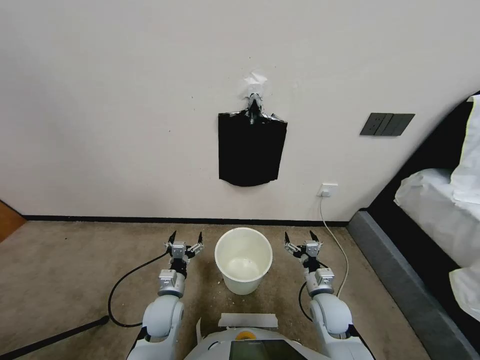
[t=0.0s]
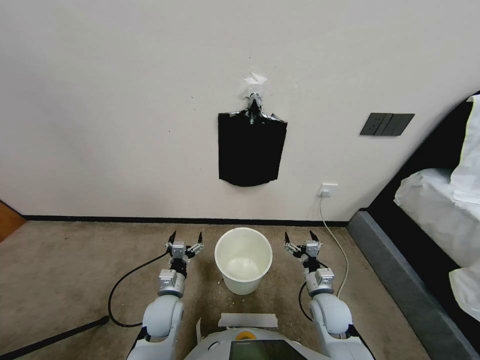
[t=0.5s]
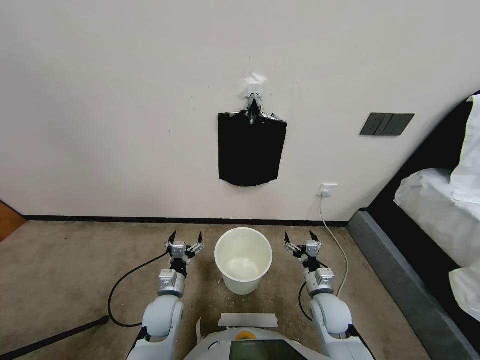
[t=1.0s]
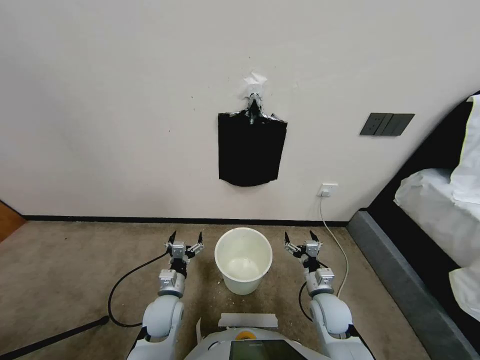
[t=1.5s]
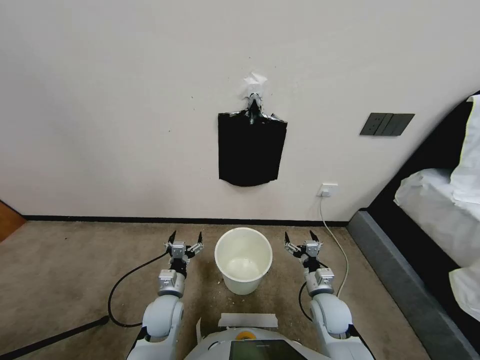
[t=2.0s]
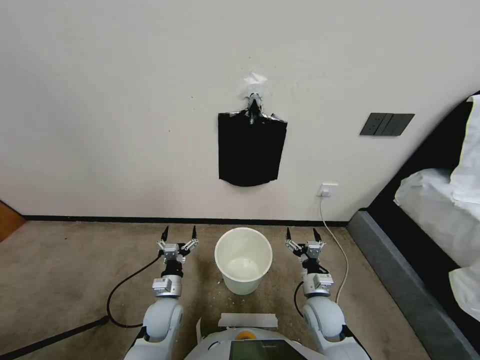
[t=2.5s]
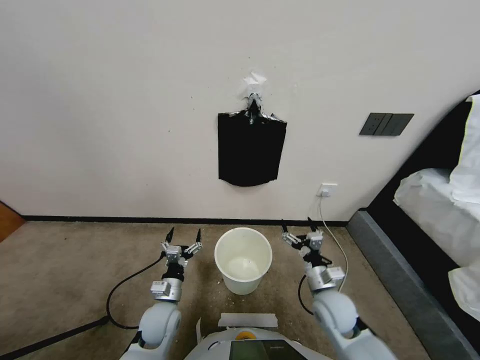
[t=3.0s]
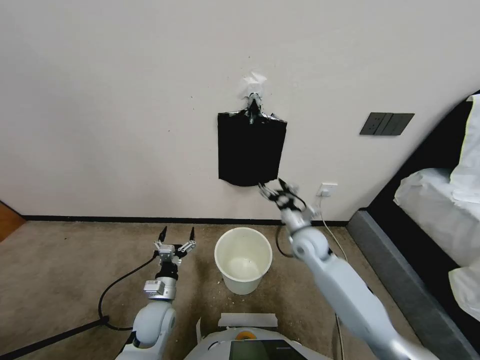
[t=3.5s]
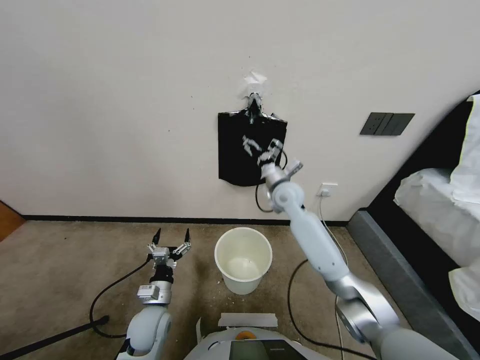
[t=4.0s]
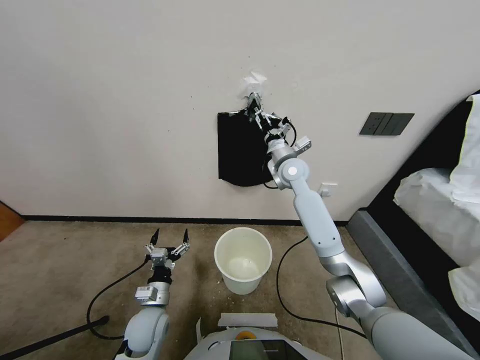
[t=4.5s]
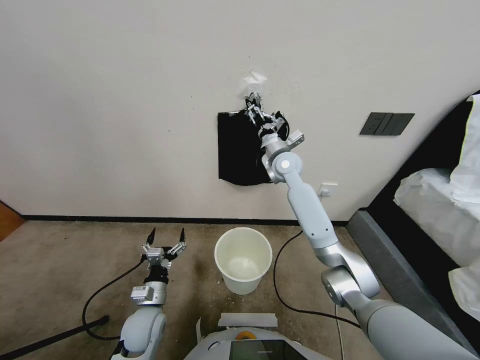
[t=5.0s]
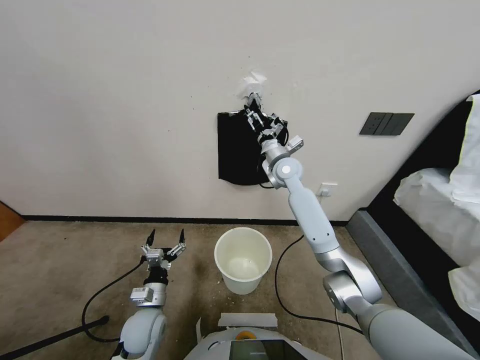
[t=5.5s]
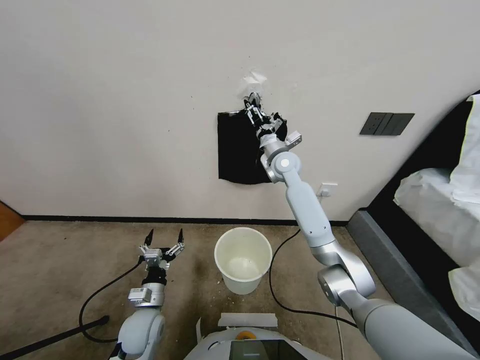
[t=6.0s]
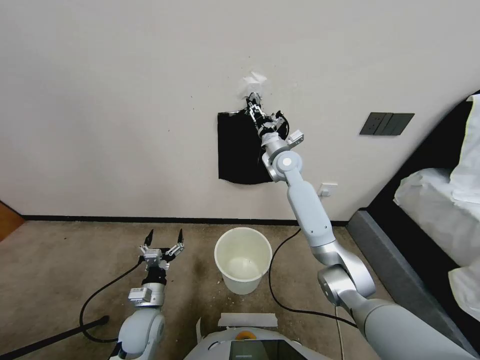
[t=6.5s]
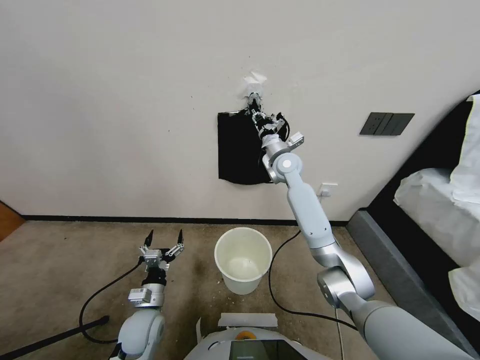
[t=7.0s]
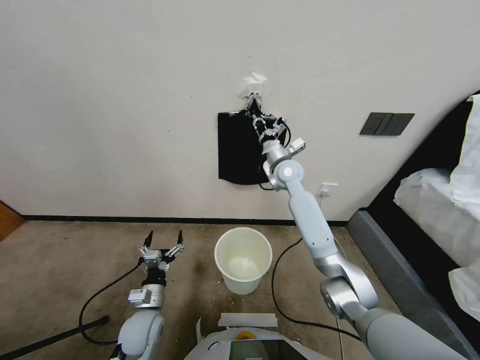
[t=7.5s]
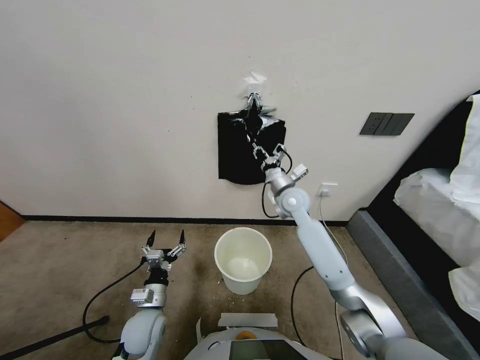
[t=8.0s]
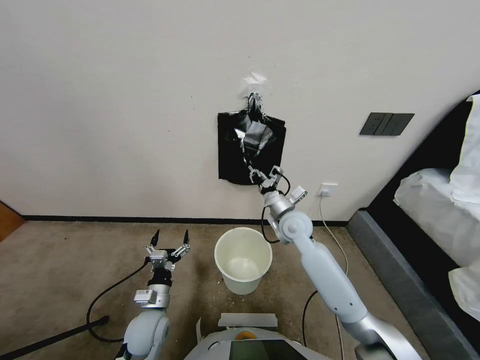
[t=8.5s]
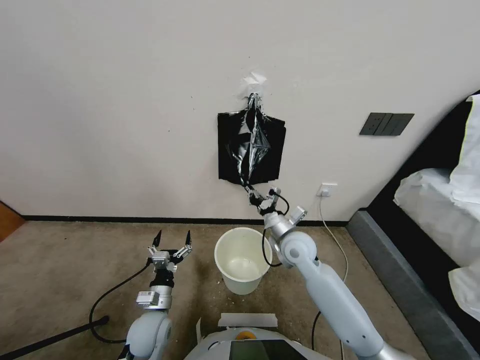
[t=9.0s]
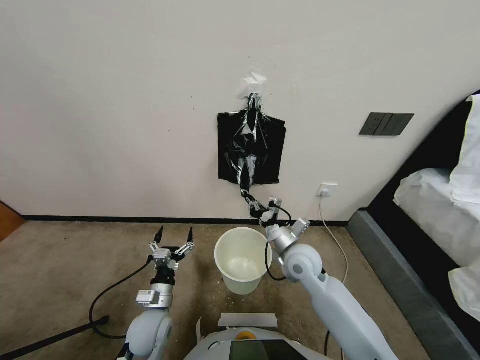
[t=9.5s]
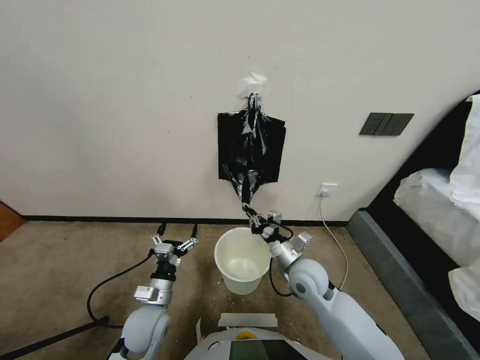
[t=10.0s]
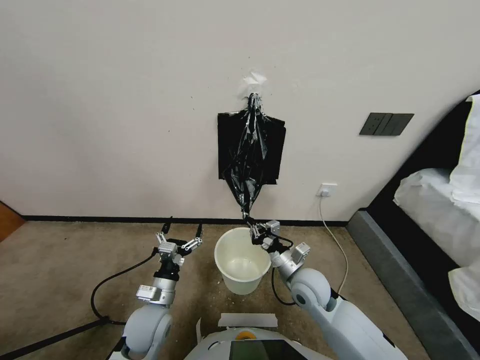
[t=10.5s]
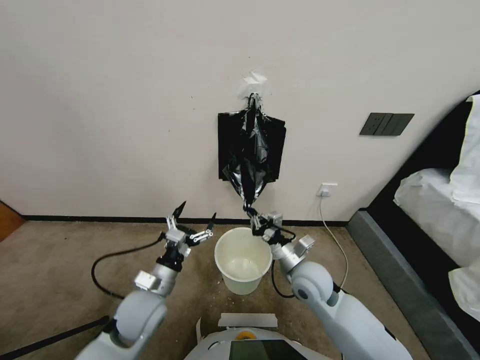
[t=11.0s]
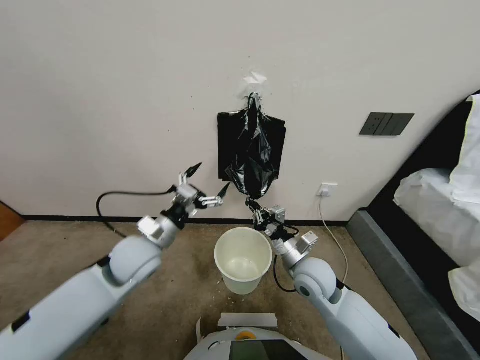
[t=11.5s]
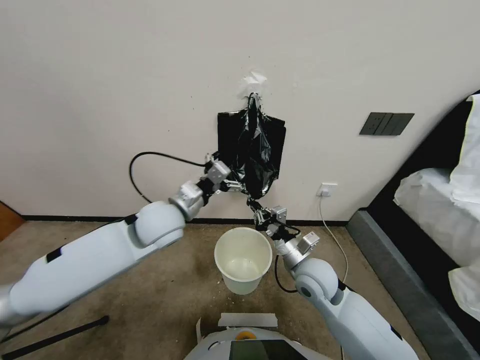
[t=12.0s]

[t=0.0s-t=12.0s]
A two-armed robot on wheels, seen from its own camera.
Task of the whole recording: Place a trash bag onto the trash bin.
t=2.0s to t=4.0s: The right gripper heads forward and upward, covering about 35 cm.
t=4.0s to t=6.0s: The right gripper shifts approximately 5 cm forward.
t=6.0s to t=8.0s: The right gripper heads backward and downward, covering some 15 cm, and closes its fingers.
t=8.0s to t=10.0s: The right gripper is displaced backward and downward by roughly 20 cm.
t=10.0s to t=12.0s: The left gripper shifts approximately 30 cm upward and forward.

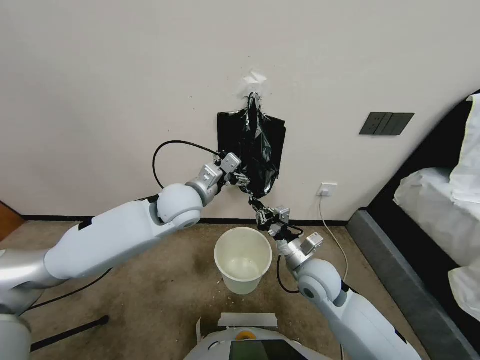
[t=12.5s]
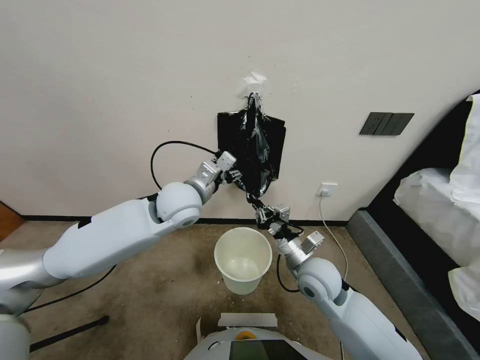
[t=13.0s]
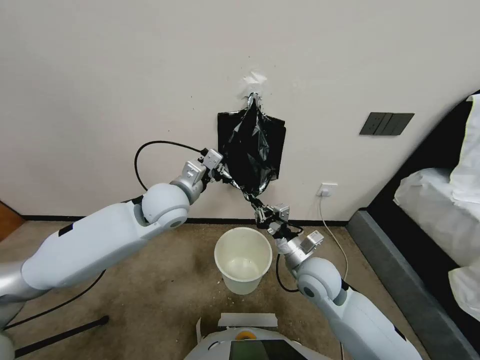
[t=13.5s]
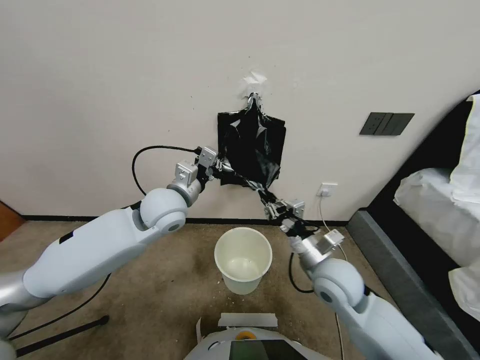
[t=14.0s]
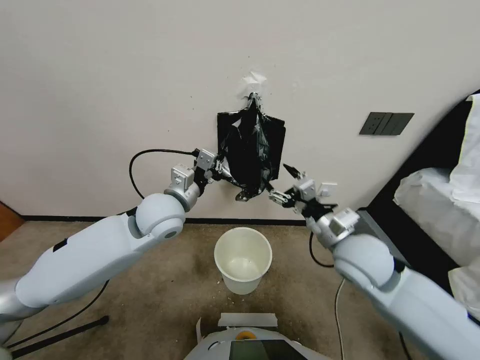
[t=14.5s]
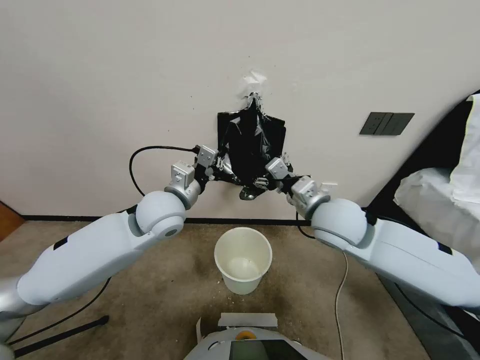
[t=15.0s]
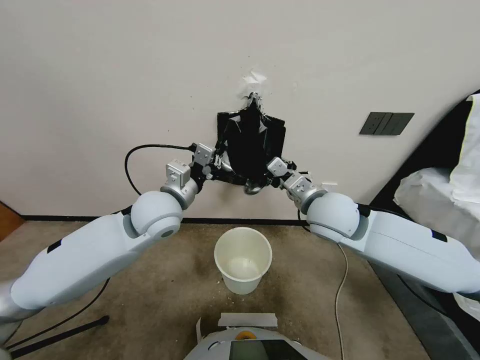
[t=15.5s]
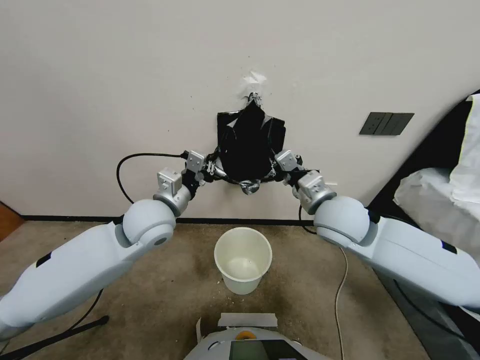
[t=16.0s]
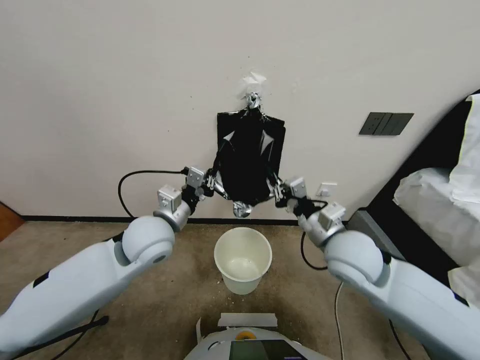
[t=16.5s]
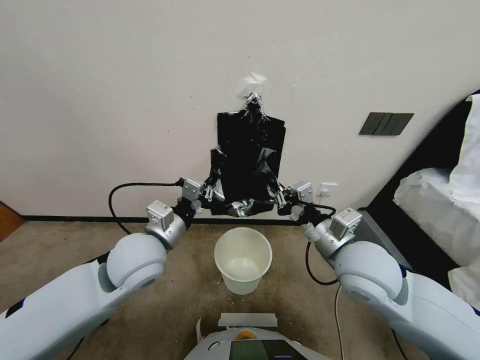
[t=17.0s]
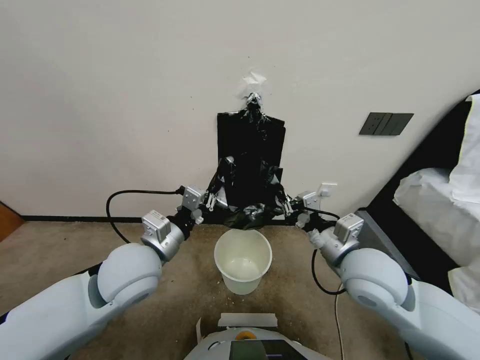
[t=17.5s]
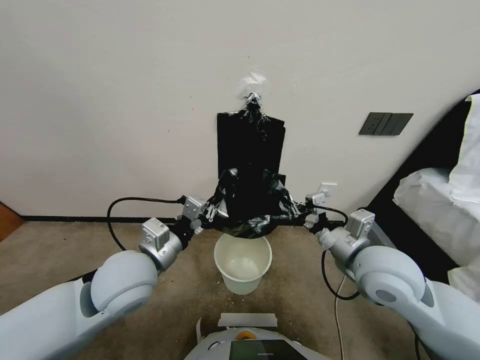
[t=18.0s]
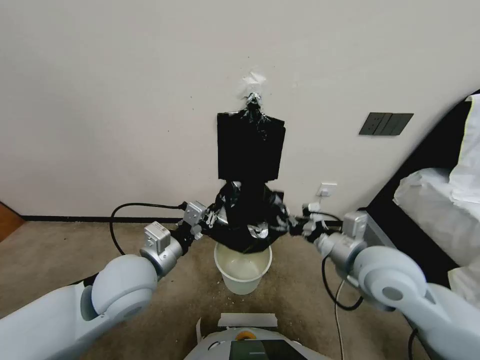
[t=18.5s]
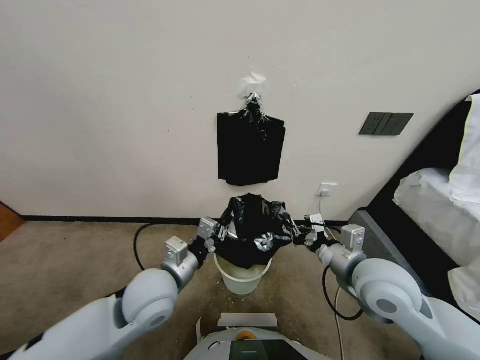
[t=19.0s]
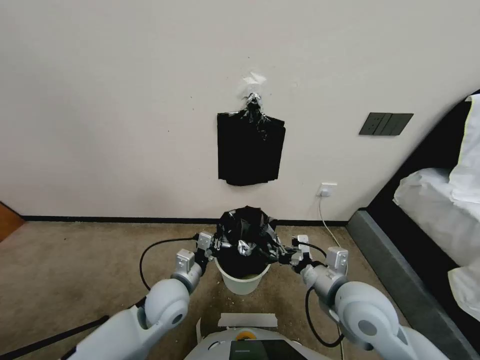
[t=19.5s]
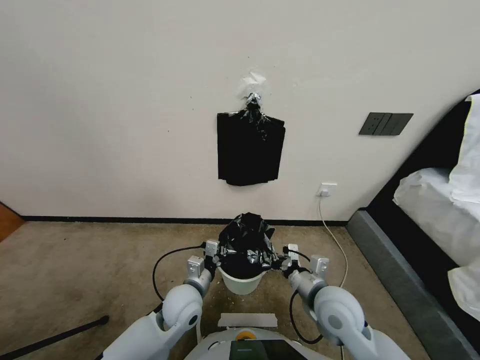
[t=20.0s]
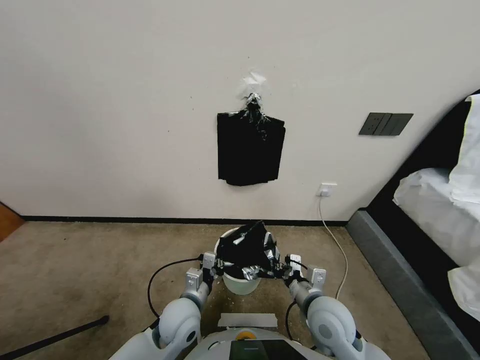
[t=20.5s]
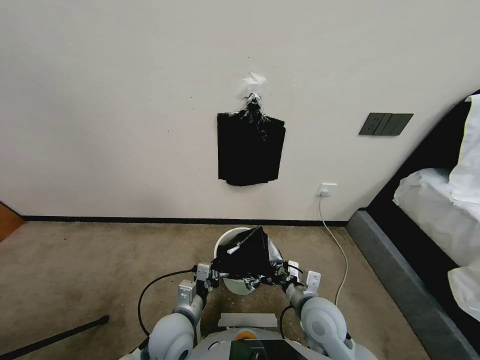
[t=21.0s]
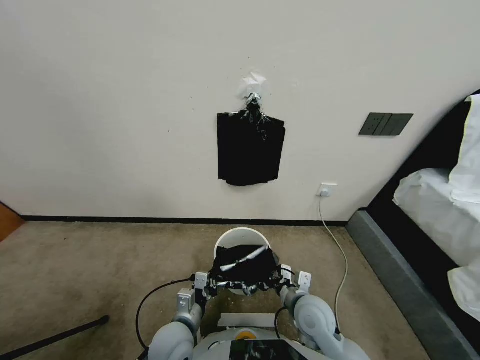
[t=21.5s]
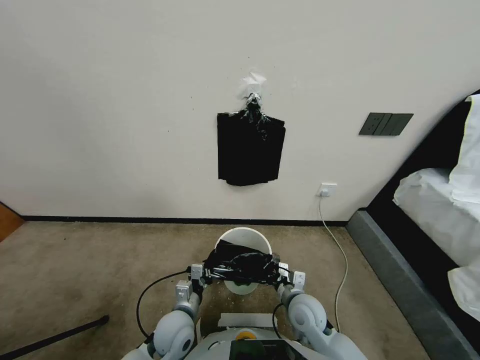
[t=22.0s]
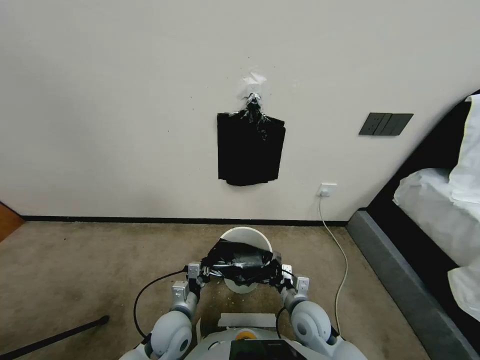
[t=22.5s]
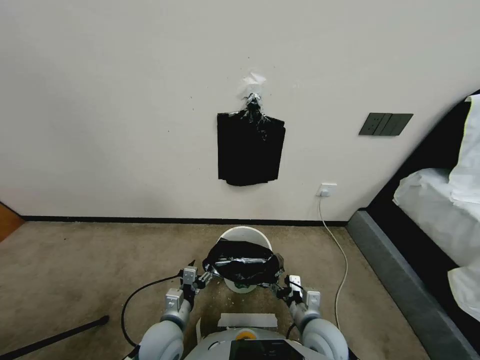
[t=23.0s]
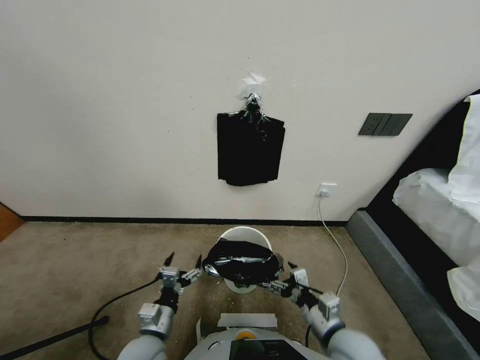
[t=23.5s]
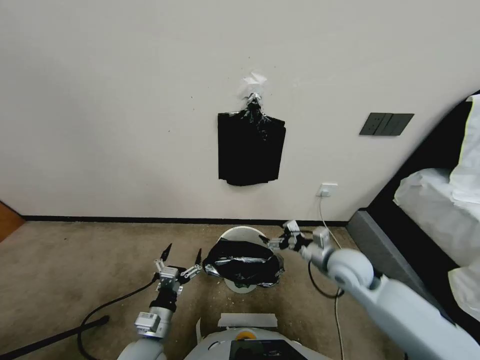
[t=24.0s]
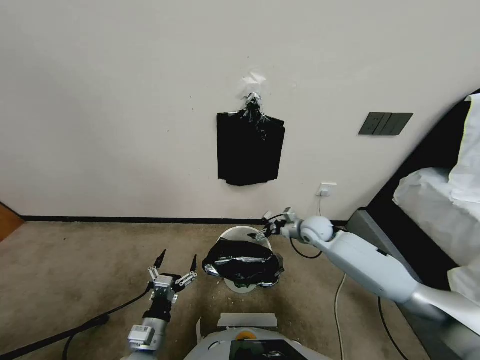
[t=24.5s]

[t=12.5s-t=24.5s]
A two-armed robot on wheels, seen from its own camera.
Task of the whole recording: Place a trash bag onto the trash bin.
t=12.5s to t=14.5s: The right gripper travels upward by about 10 cm, and opens. The left gripper closes its fingers.
t=14.5s to t=16.5s: The right gripper closes up. The left gripper shifts about 5 cm backward.
t=16.5s to t=18.5s: The left gripper shifts approximately 5 cm backward.
t=18.5s to t=20.5s: The right gripper shifts roughly 15 cm downward and to the left. Meanwhile the left gripper moves downward, about 20 cm.
t=20.5s to t=22.5s: The right gripper shifts some 10 cm downward, while the left gripper heads downward, covering approximately 5 cm.
t=22.5s to t=24.5s: The right gripper moves forward, about 25 cm, and opens its fingers, while the left gripper goes approximately 10 cm backward and to the left, and opens.

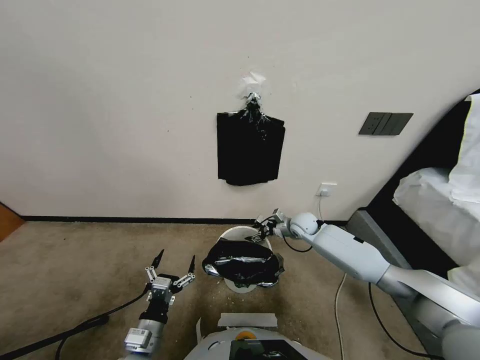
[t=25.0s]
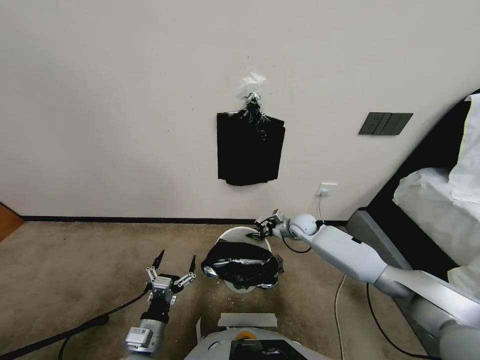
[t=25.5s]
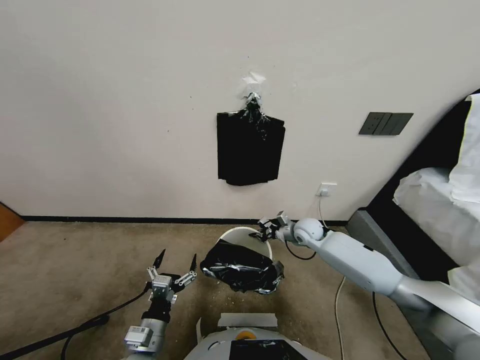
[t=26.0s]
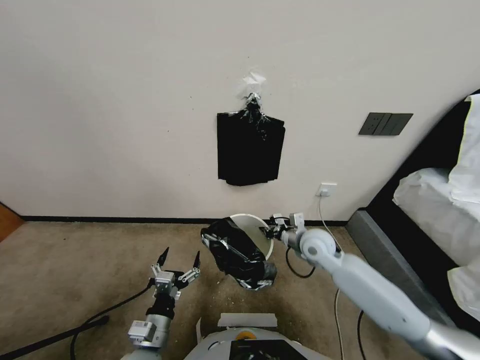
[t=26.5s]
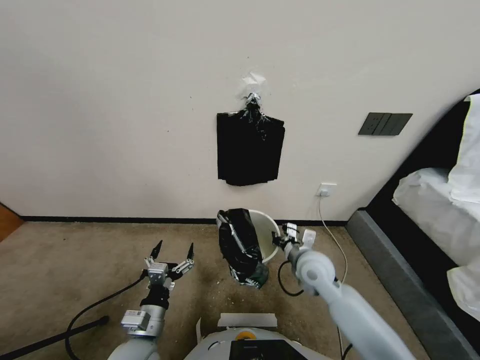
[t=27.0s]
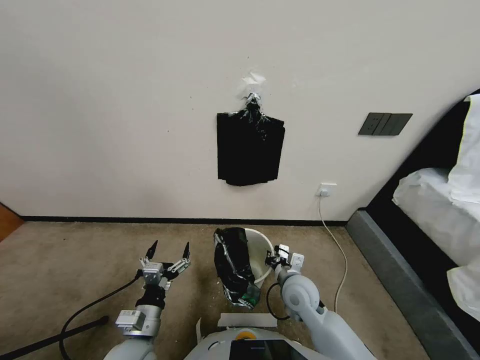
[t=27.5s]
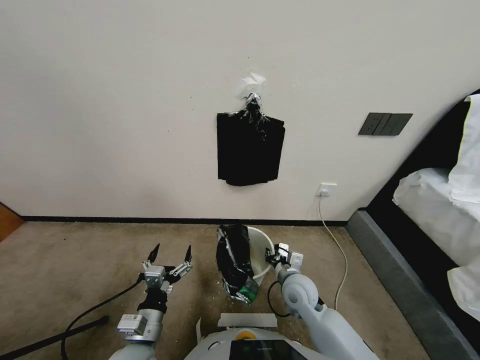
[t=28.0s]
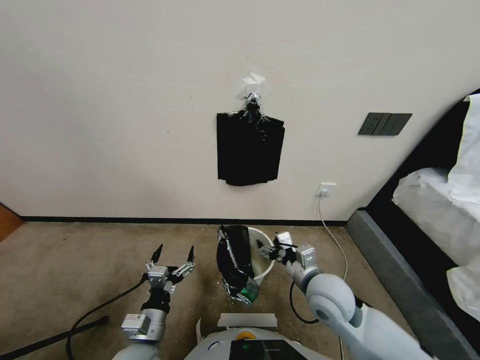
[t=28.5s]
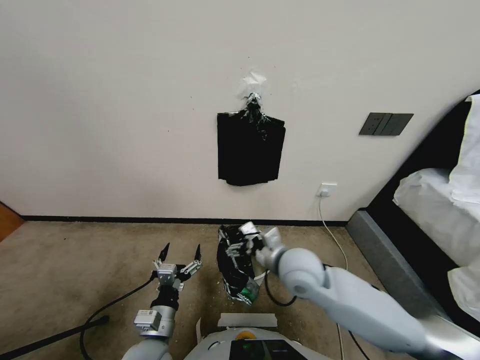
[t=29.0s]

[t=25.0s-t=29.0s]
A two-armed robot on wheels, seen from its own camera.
Task of the whole recording: Place a trash bag onto the trash bin.
t=25.0s to t=27.0s: The right gripper shifts some 20 cm backward, and closes its fingers.
t=27.0s to t=29.0s: The right gripper is displaced to the left and upward by approximately 10 cm, and opens.
